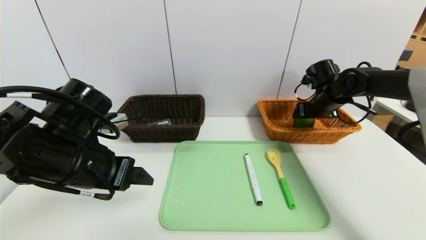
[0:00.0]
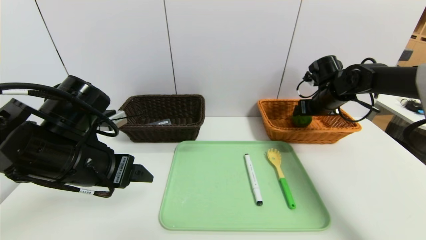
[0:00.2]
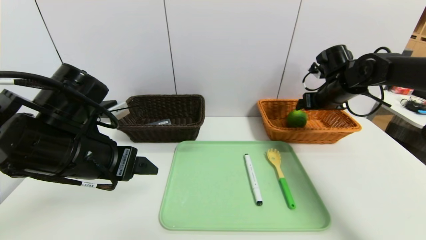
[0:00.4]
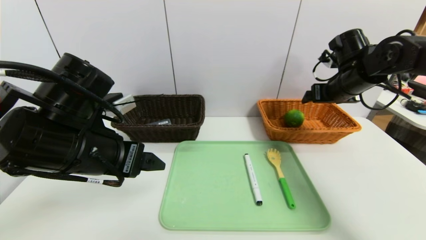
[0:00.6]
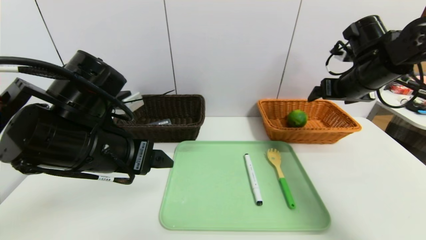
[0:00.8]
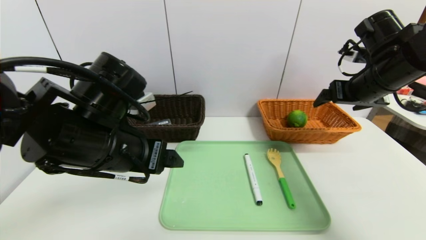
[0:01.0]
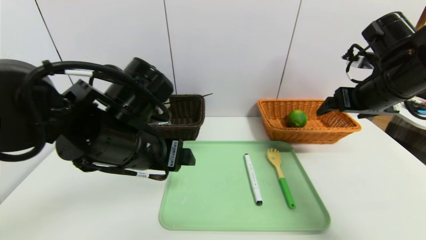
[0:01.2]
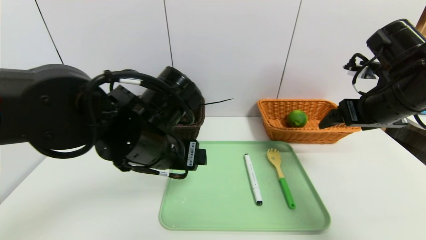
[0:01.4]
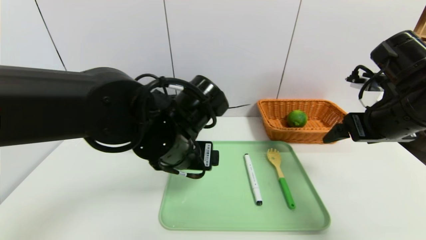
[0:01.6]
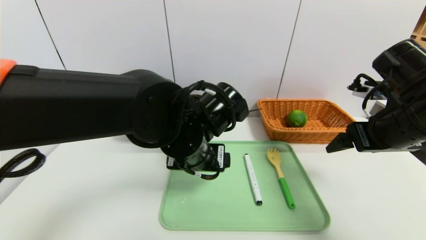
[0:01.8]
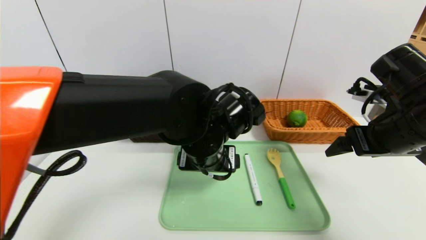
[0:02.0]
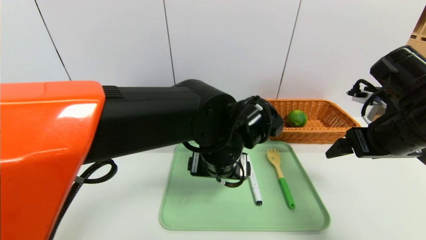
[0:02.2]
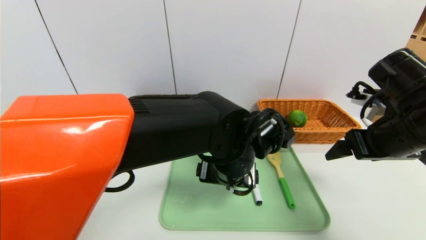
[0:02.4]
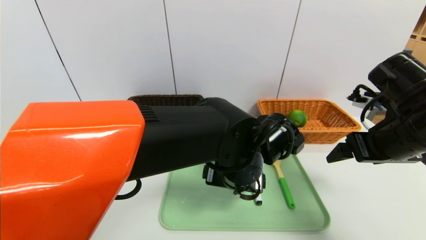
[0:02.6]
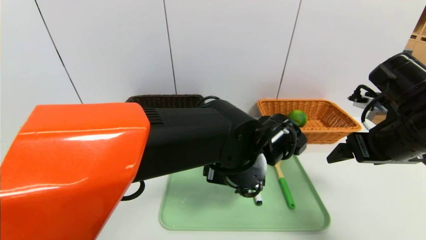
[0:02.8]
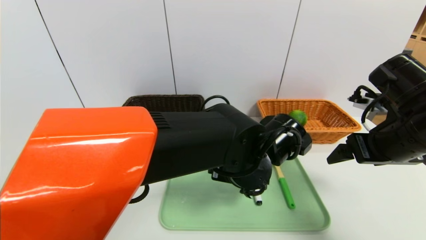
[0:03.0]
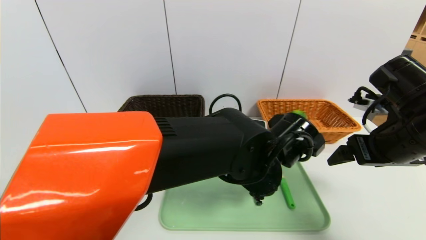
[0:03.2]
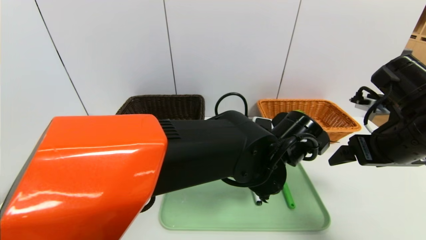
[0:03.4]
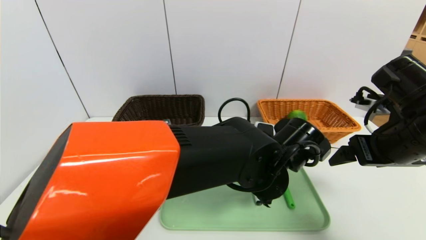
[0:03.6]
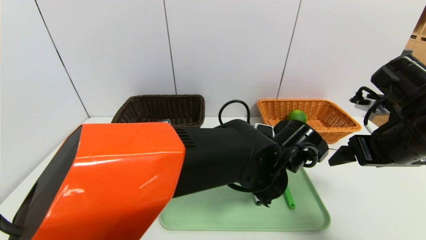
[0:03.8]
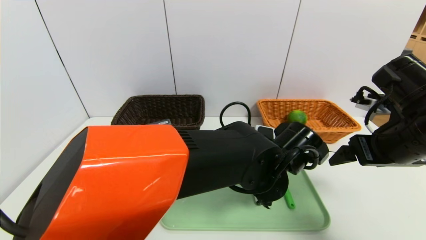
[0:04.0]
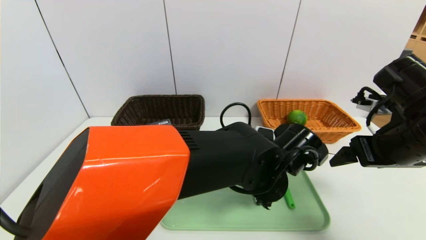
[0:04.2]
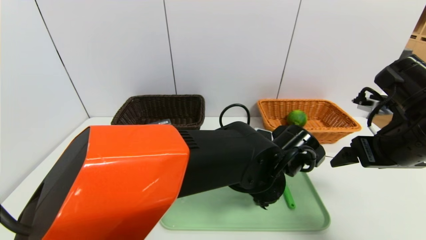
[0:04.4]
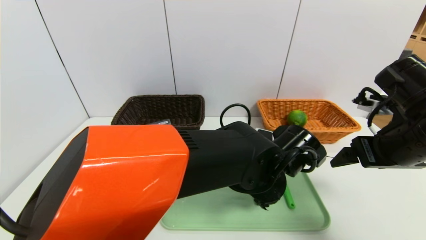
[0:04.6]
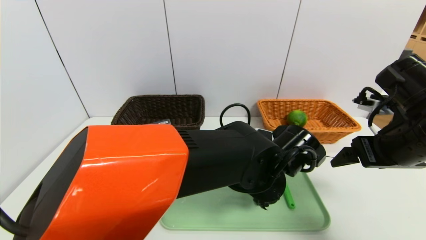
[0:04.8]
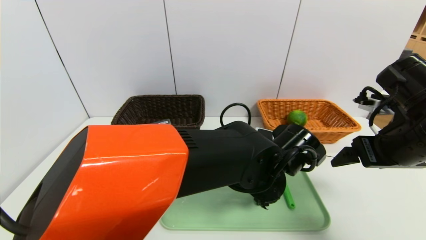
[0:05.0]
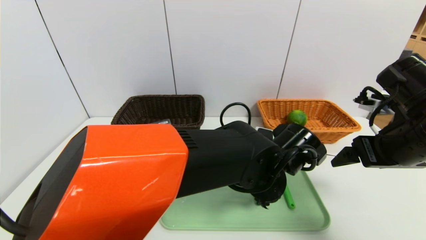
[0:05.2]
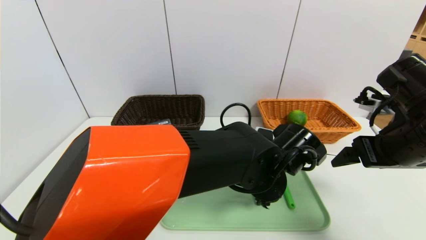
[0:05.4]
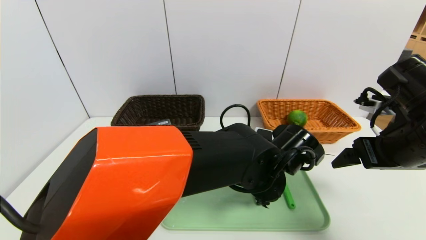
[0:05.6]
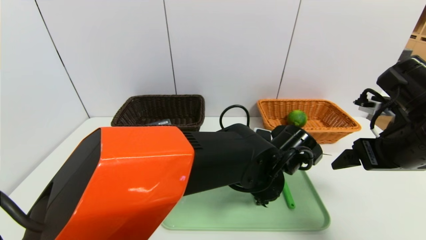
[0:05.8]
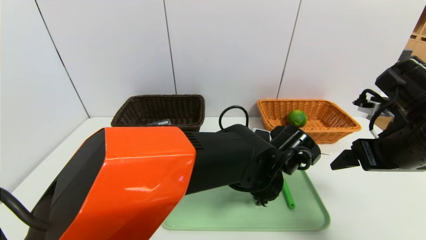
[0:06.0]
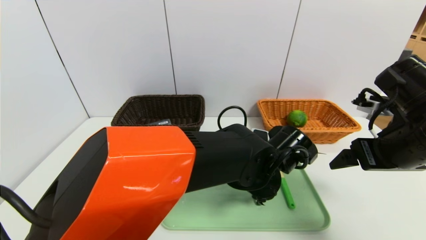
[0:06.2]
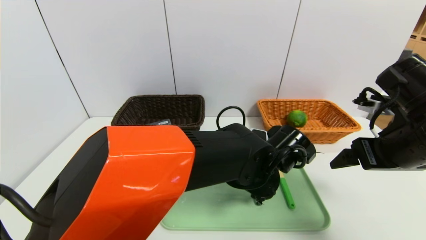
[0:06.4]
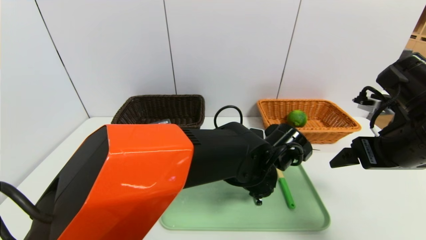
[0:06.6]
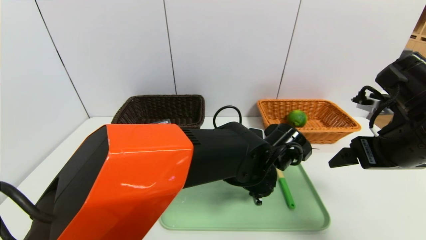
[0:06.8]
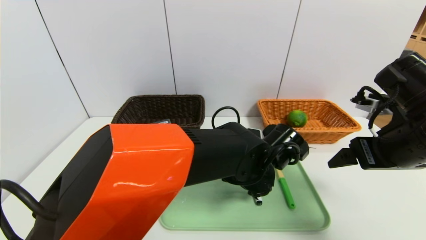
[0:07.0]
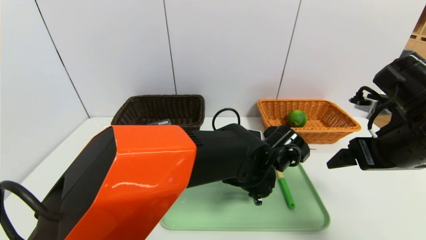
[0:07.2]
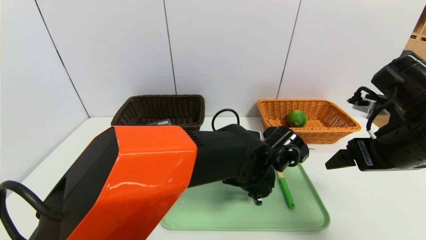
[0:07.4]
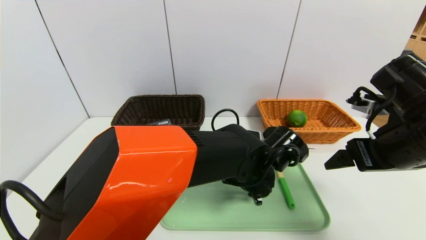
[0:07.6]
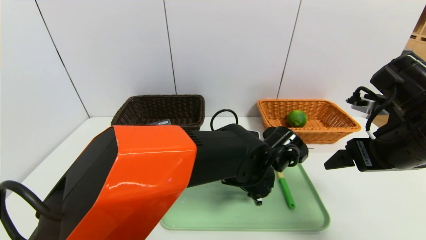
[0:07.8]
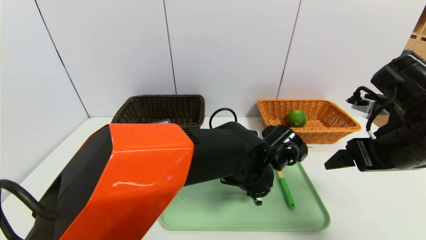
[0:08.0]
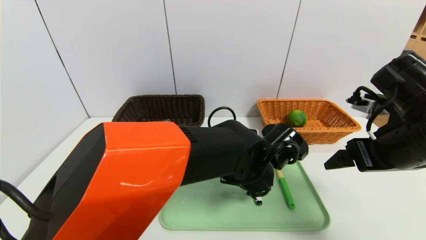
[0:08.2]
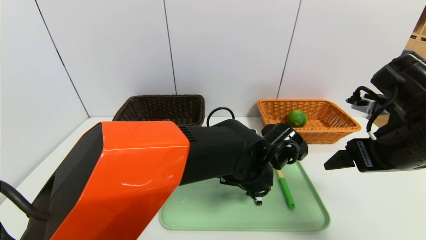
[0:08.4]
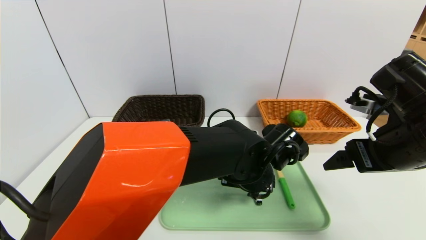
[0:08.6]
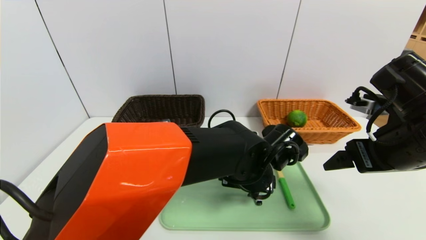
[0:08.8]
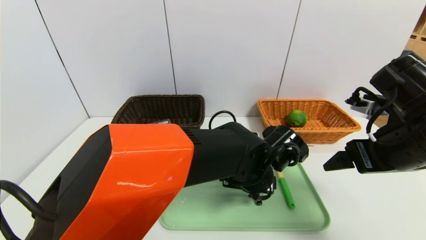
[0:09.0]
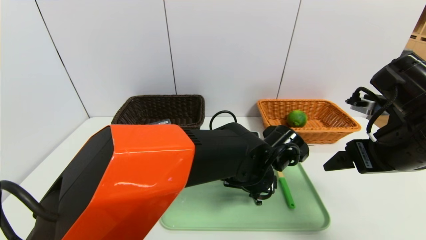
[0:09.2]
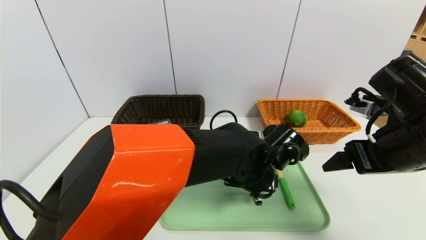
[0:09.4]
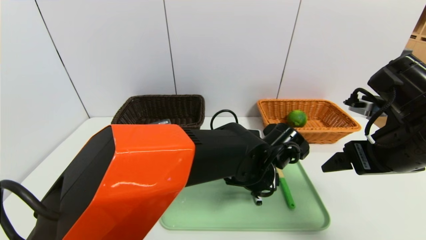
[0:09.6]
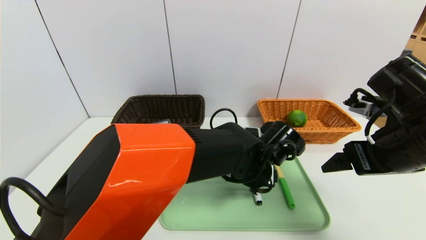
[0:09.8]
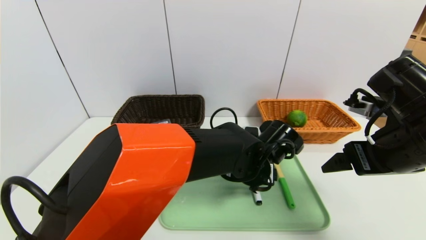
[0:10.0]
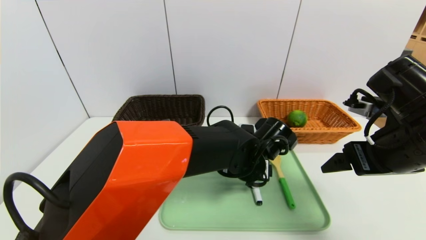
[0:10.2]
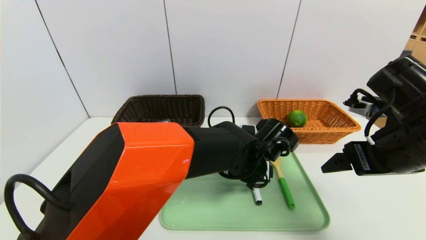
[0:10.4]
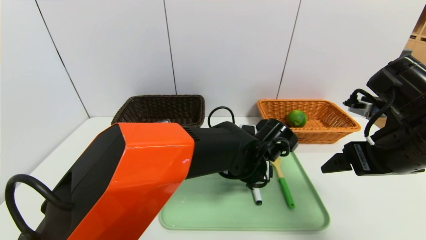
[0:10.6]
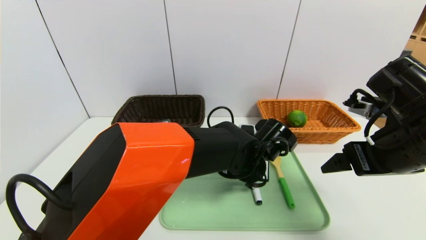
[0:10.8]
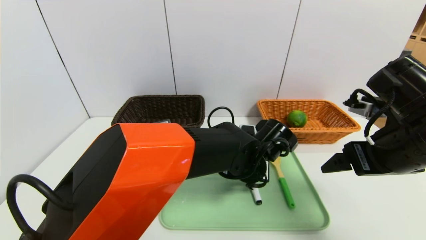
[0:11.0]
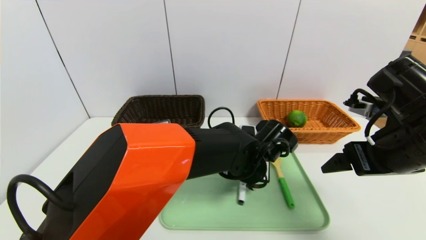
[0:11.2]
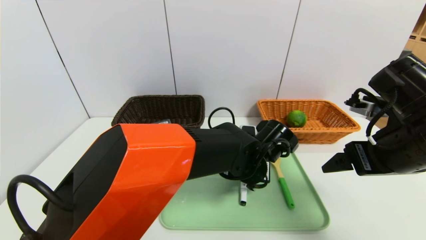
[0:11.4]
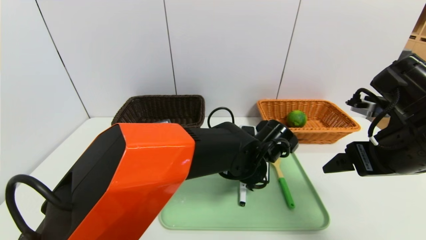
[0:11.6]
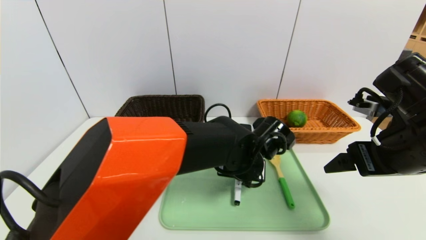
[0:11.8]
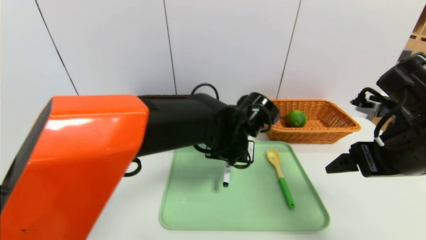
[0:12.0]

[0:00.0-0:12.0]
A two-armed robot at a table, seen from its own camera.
Task of the whole recording: place the food in the right basket with the right gripper, and place the non food items in the left basket with the left gripper.
0:00.0 to 0:01.6: The left gripper goes approximately 15 cm to the right; the right gripper travels backward and upward by some 20 cm.
0:01.6 to 0:03.0: The left gripper goes roughly 10 cm to the right.
0:03.0 to 0:04.4: The left gripper closes.
0:04.4 to 0:06.0: The left gripper opens up.
0:06.0 to 0:07.6: The grippers make only small movements.
0:07.6 to 0:09.0: Both grippers stay about where they are.
0:09.0 to 0:10.4: The grippers make only small movements.
0:10.4 to 0:12.0: The left gripper moves upward, roughly 5 cm, and closes up.

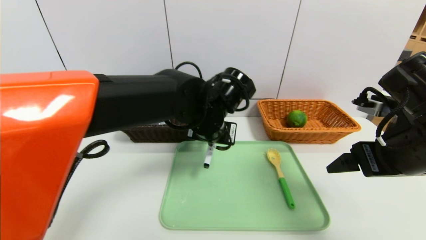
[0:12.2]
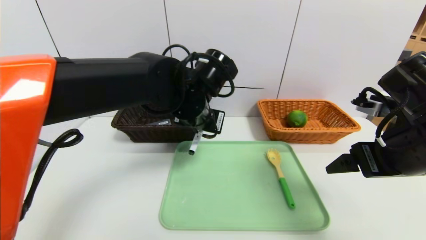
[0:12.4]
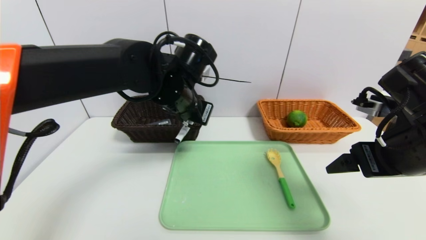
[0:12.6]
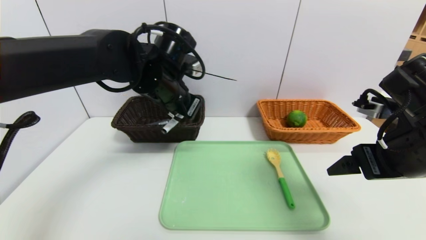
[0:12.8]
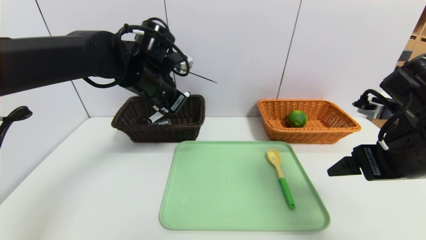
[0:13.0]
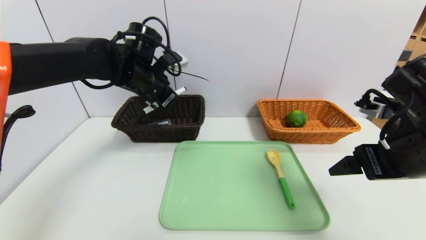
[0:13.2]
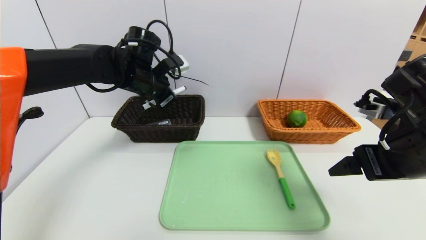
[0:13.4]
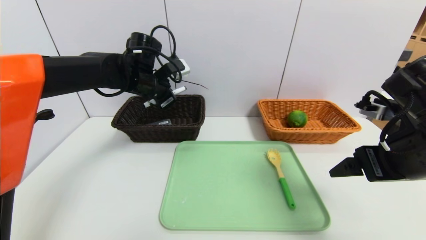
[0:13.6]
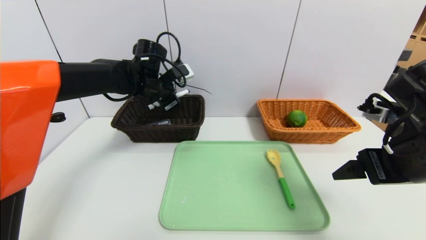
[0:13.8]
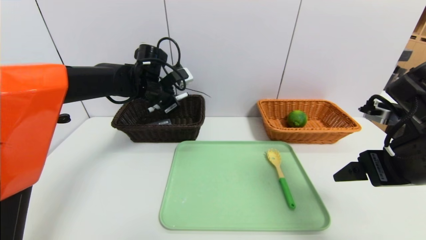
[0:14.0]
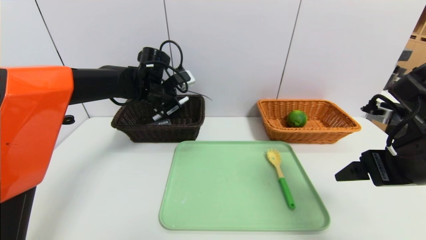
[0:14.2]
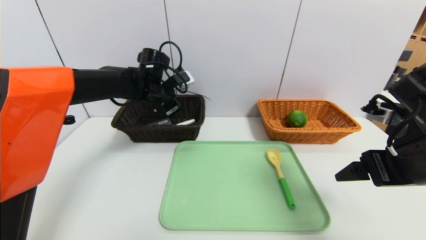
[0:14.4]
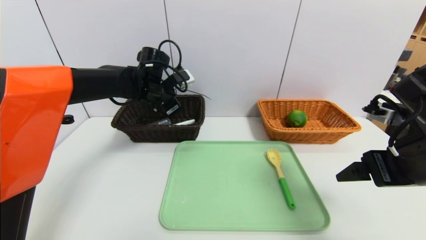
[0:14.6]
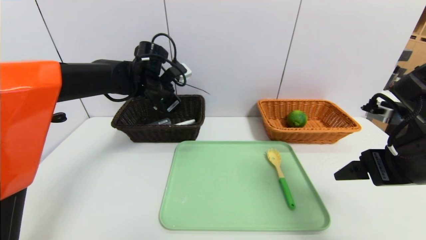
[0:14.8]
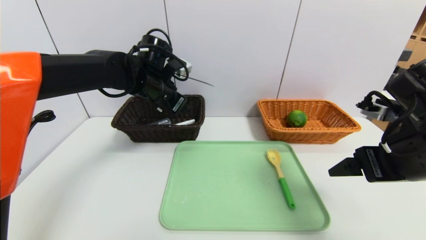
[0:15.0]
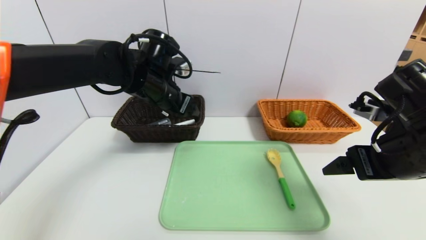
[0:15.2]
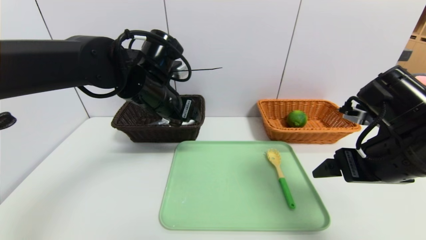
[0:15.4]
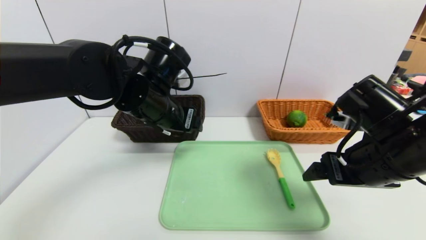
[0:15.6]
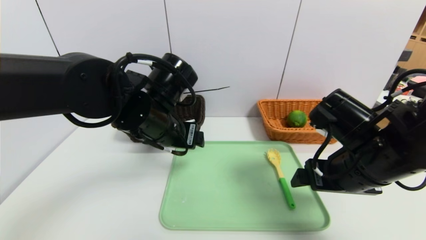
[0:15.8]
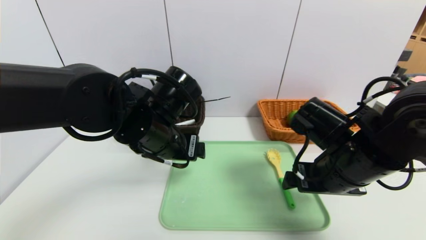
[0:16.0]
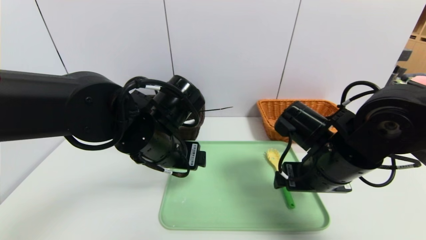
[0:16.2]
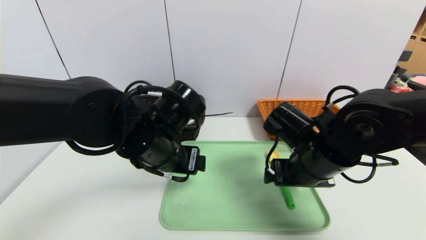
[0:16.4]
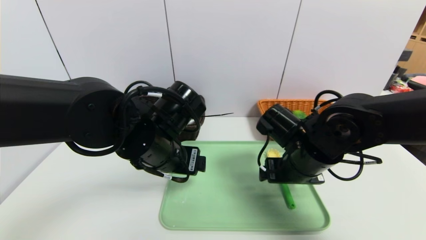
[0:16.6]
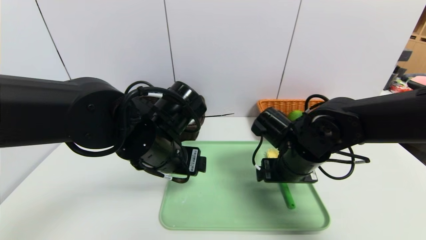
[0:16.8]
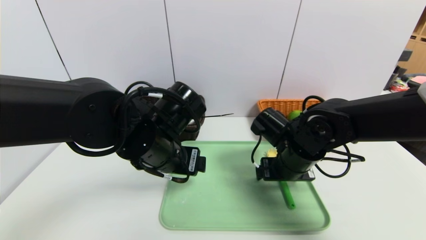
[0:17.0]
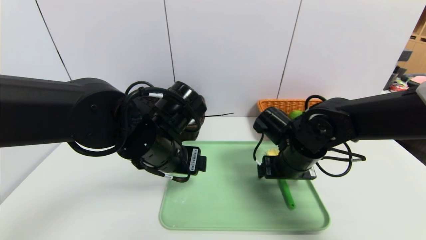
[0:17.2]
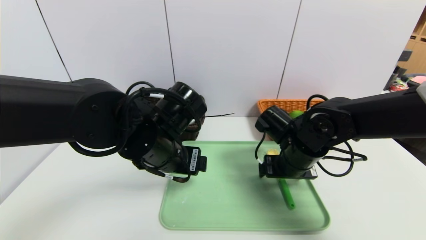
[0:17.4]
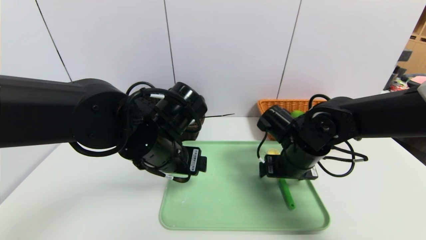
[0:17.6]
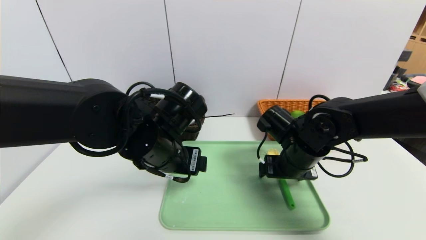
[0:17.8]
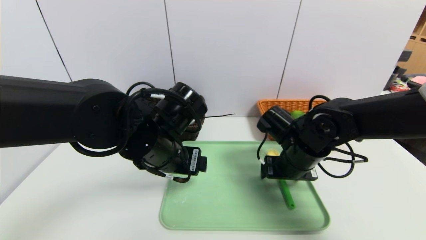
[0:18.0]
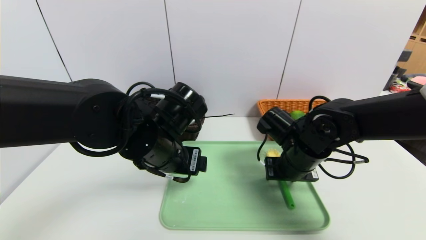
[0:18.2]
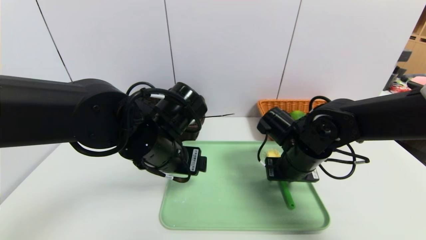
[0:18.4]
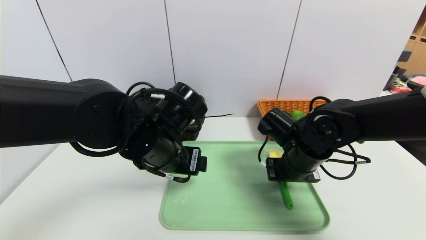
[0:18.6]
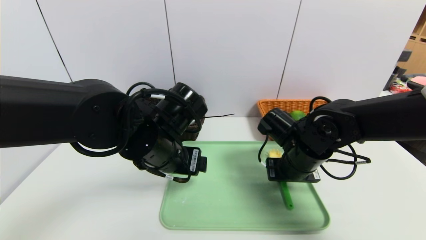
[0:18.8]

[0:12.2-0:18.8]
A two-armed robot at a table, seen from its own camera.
Task of the whole recording: place the food in the right basket with the right gripper, and place the non food items in the left basket with the left gripper.
Step, 0:12.2 to 0:15.8: Grasp the black marker and put it in the left basket.
0:12.2 to 0:13.8: The left gripper goes about 20 cm to the left and forward.
0:13.8 to 0:15.4: The left gripper goes some 10 cm backward, and opens.
0:15.4 to 0:17.2: The left gripper heads backward and downward, covering roughly 10 cm. The right gripper goes approximately 15 cm forward, downward and to the left.
0:17.2 to 0:18.8: The right gripper closes.
